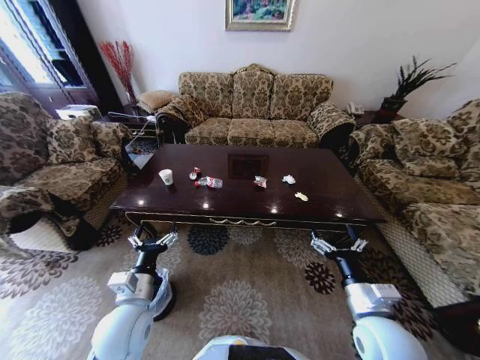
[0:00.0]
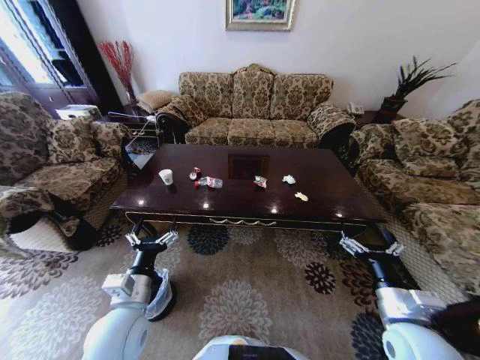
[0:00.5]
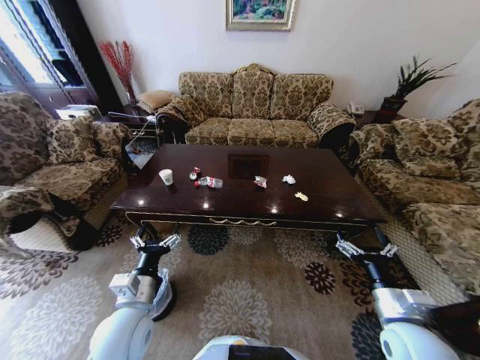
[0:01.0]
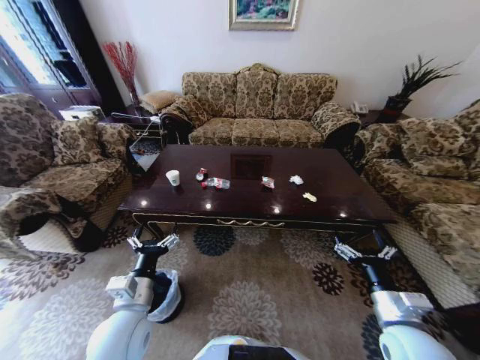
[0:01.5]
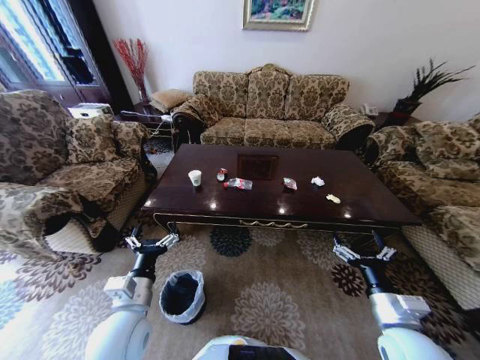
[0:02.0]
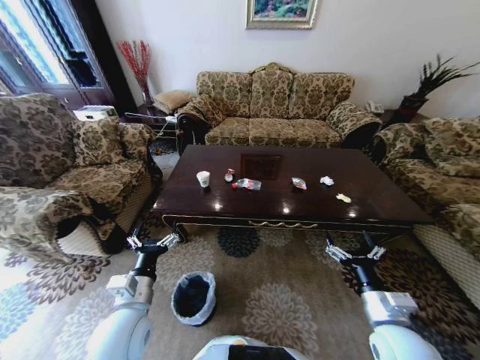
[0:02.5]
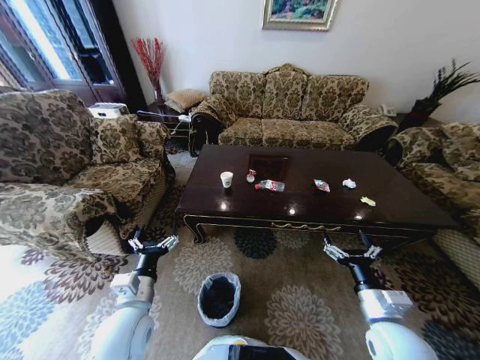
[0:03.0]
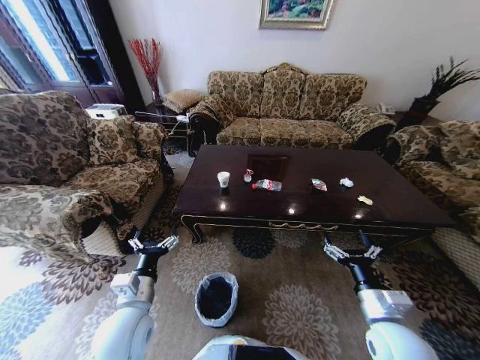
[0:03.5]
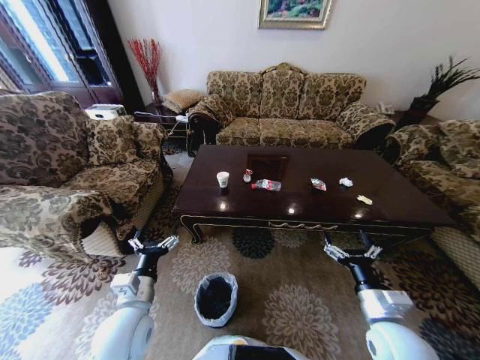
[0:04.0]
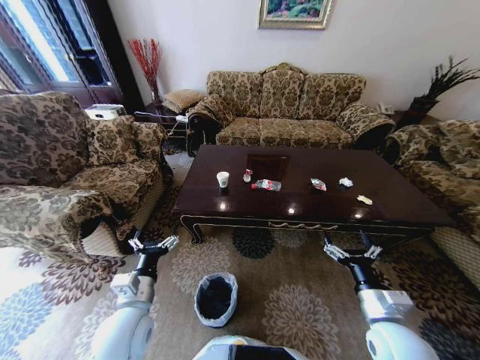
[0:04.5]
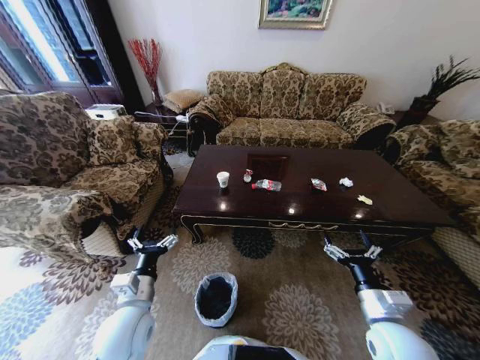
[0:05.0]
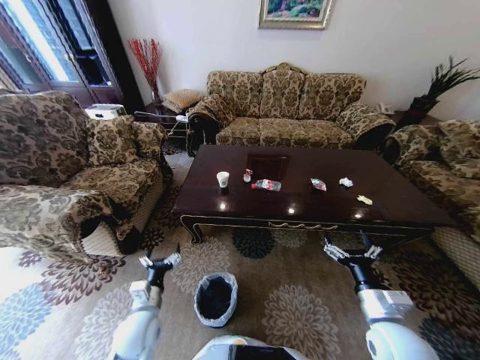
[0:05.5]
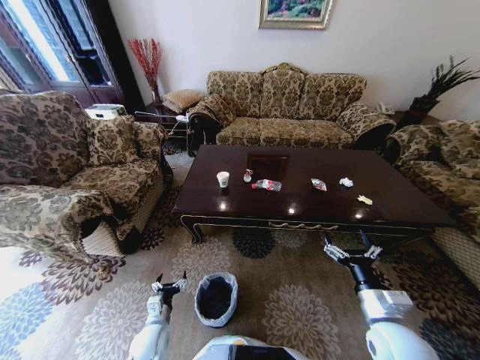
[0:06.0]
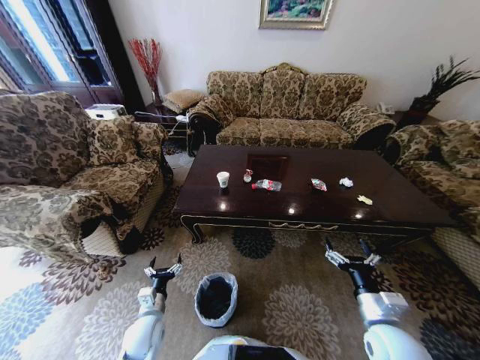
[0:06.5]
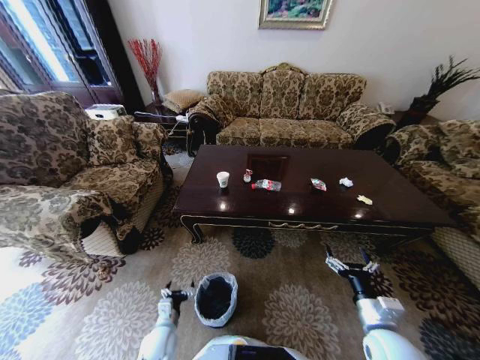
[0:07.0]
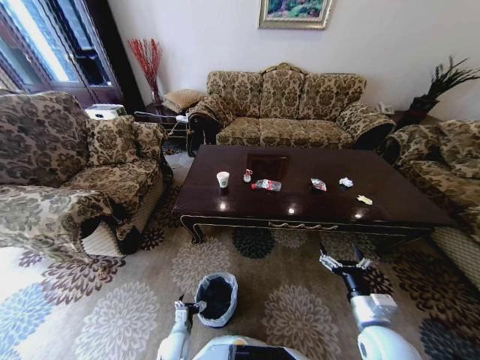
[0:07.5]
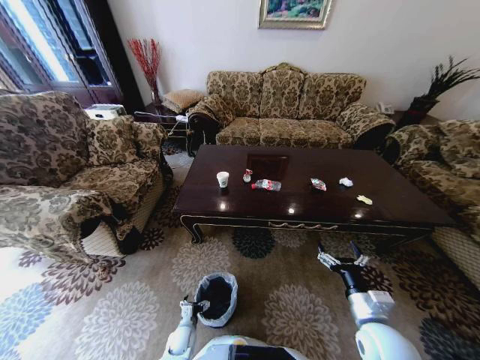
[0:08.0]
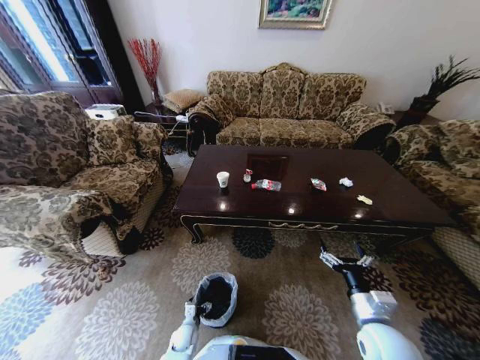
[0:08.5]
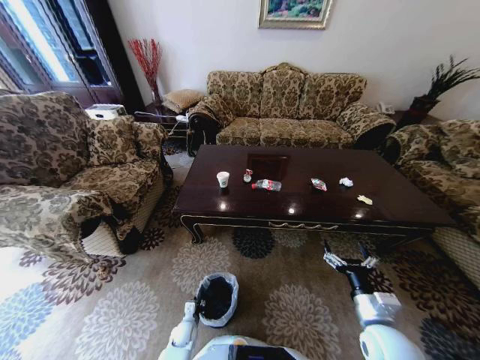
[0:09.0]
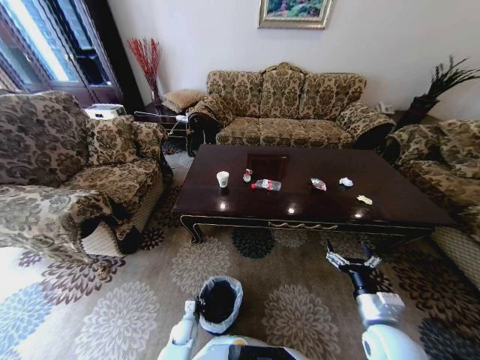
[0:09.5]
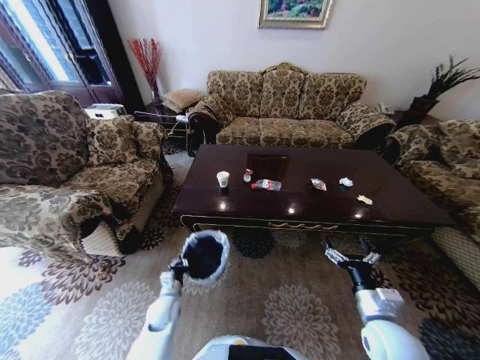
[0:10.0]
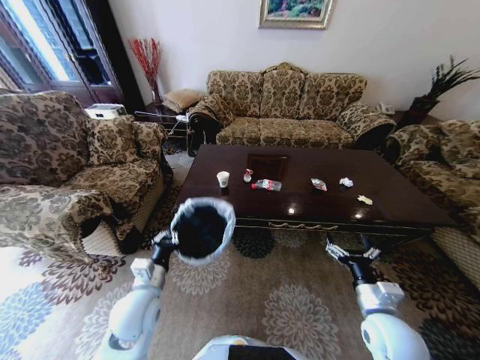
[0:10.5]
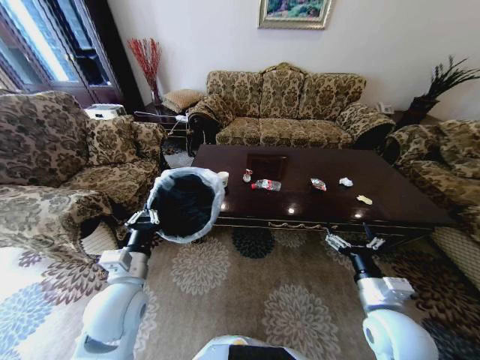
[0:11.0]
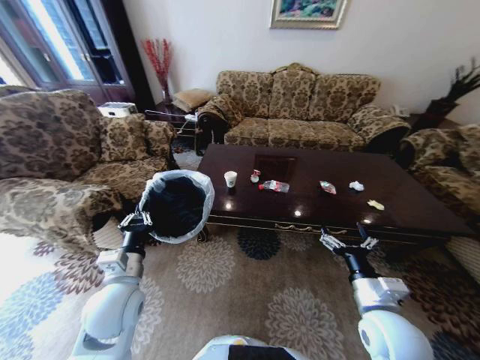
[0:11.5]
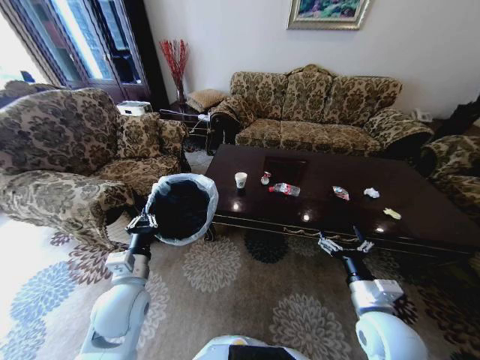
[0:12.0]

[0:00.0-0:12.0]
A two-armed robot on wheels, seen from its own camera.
Task of the whole recording: Move to the front of the table and place the trash on the table into the trash bin.
0:04.0 to 0:06.0: The left gripper heads downward, covering some 20 cm.
0:06.0 to 0:08.0: The left gripper goes some 15 cm downward and to the right.
0:08.0 to 0:10.0: The left gripper goes some 15 cm upward and forward, and closes.
0:10.0 to 0:12.0: The left gripper heads upward, covering about 25 cm.

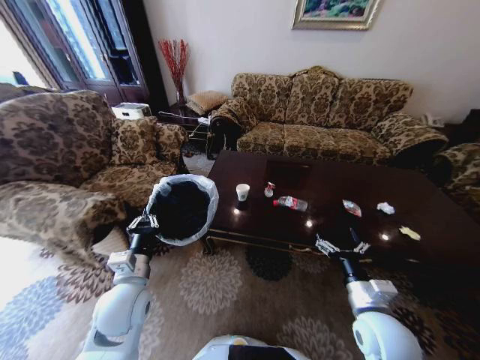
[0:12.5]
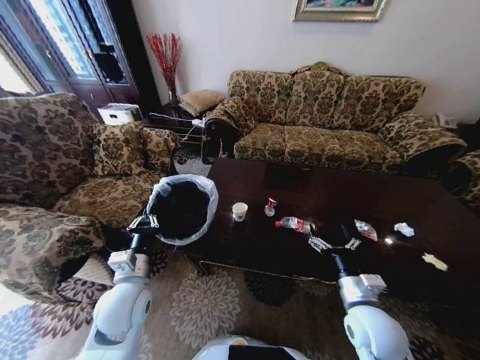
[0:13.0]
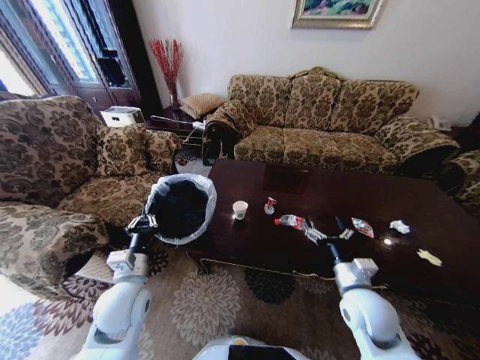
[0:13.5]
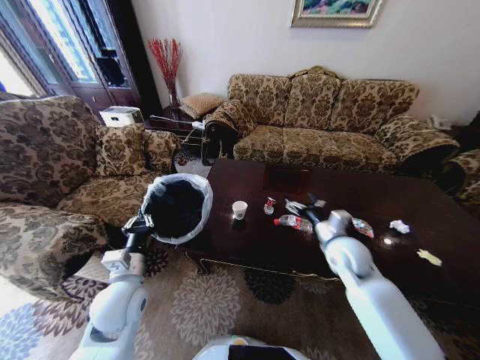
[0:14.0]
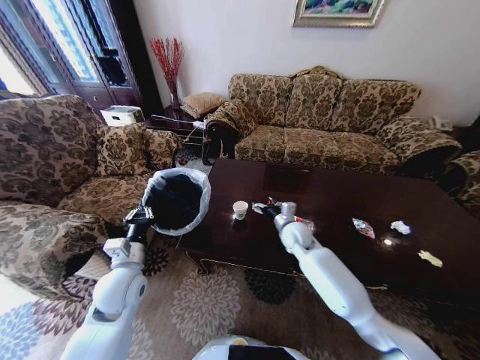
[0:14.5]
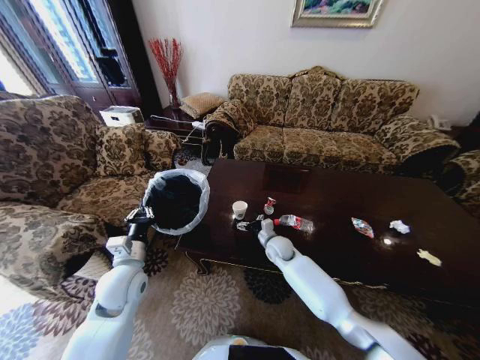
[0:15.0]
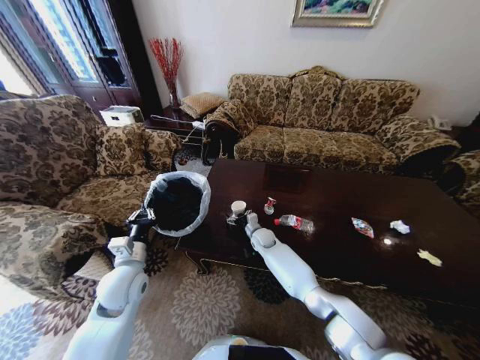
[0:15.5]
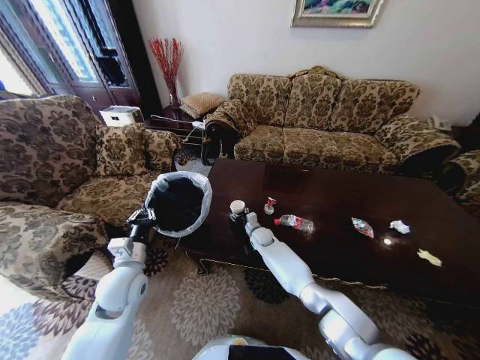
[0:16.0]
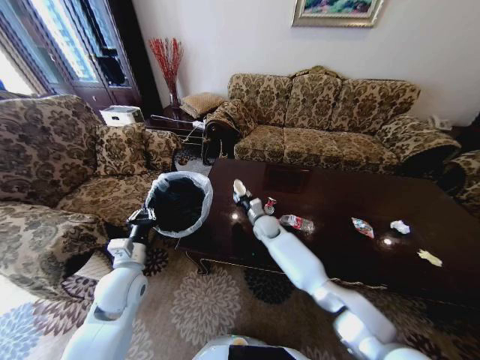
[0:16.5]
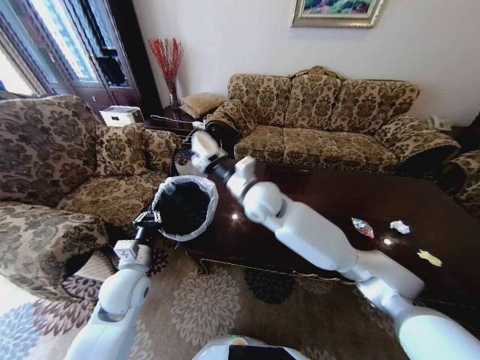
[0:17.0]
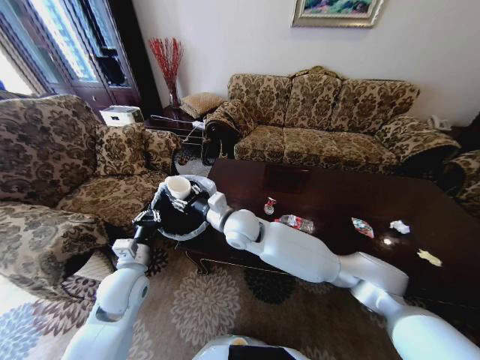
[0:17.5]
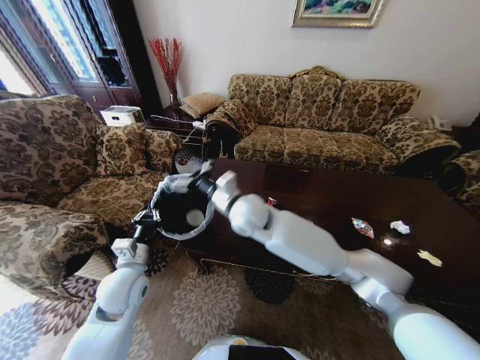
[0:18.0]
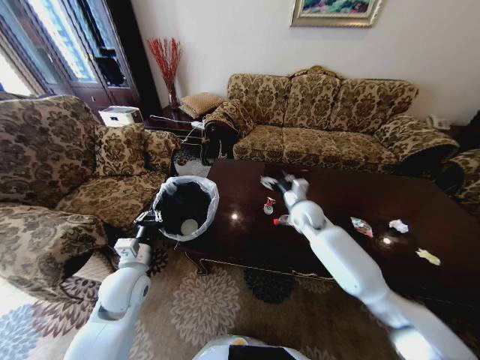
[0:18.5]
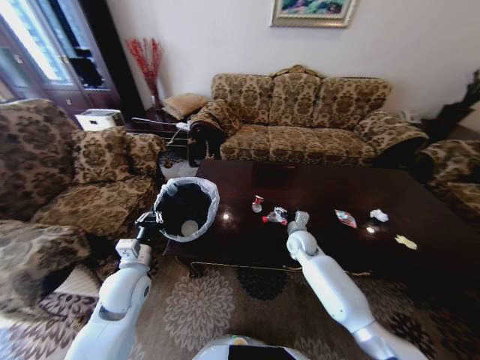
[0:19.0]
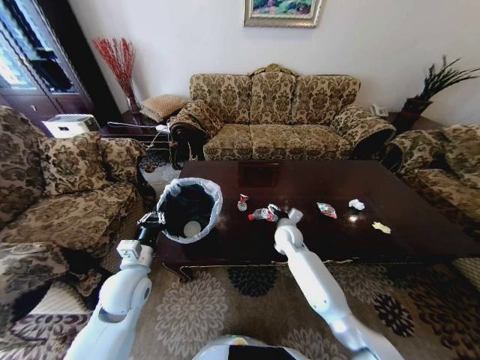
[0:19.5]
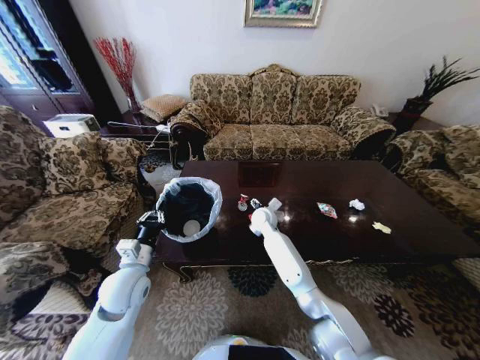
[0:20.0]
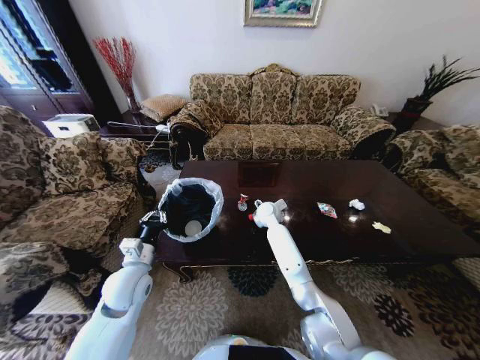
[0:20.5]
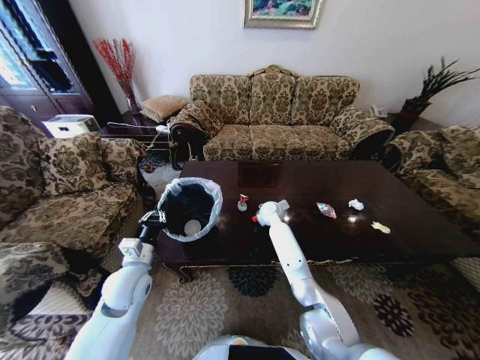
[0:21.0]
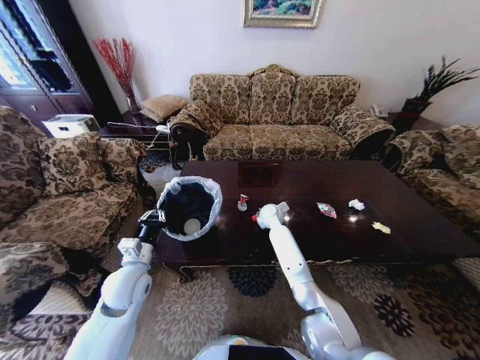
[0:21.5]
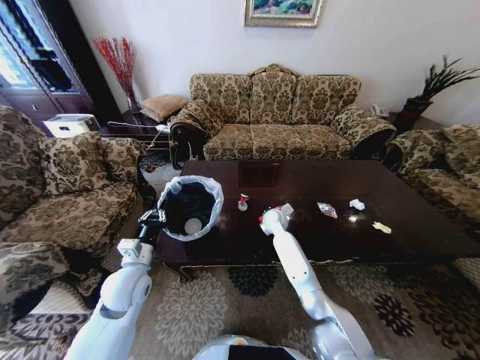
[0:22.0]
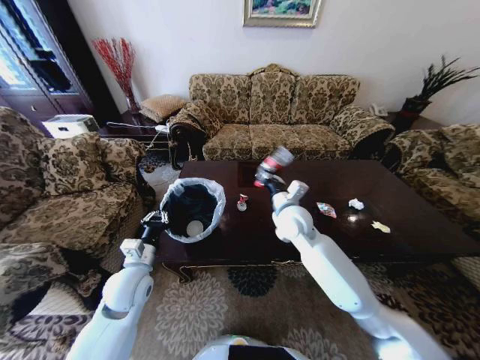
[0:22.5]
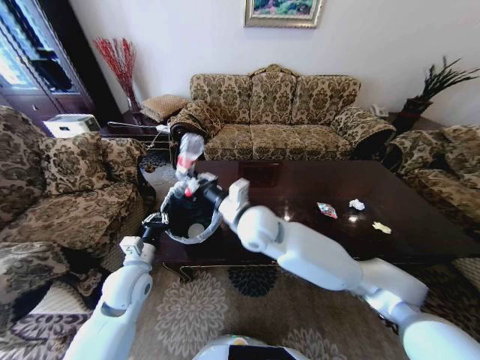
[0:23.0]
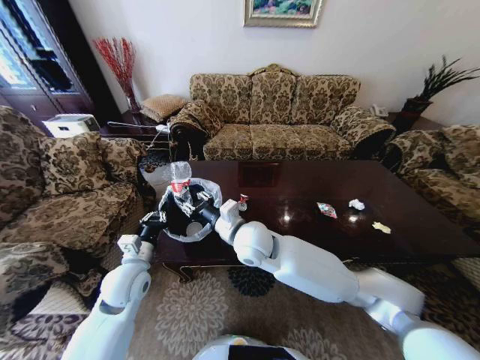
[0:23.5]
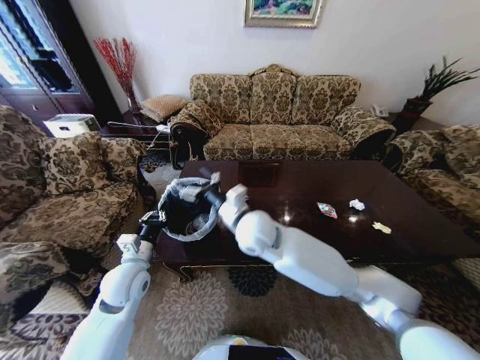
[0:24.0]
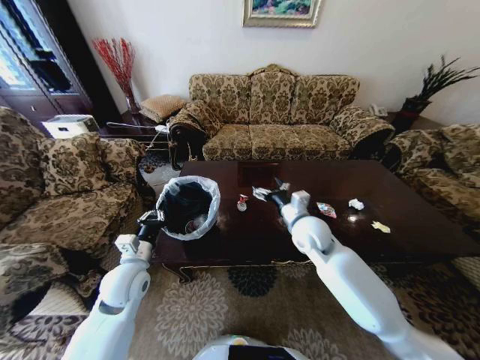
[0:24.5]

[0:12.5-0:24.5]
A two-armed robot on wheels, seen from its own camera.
Task of the whole recording: Move to the front of the table and place the trash on the table into the trash bin.
0:12.5 to 0:14.5: The right gripper heads forward and to the left, covering approximately 30 cm.
0:14.5 to 0:16.5: The right gripper moves to the left and forward, about 10 cm, travels downward and back again, approximately 15 cm each way, and closes its fingers.
0:16.5 to 0:18.5: The right gripper swings up and down, approximately 25 cm each way, with 3 reversals, and opens up.
0:18.5 to 0:20.5: The right gripper moves to the left, downward and forward, approximately 15 cm.
0:20.5 to 0:22.5: The right gripper travels backward and upward by about 15 cm, and closes its fingers.
0:22.5 to 0:24.5: The right gripper reaches roughly 10 cm to the left, then returns, and opens.

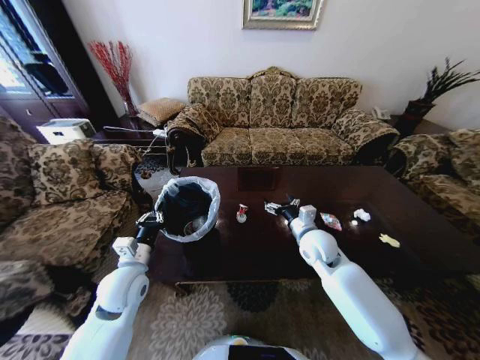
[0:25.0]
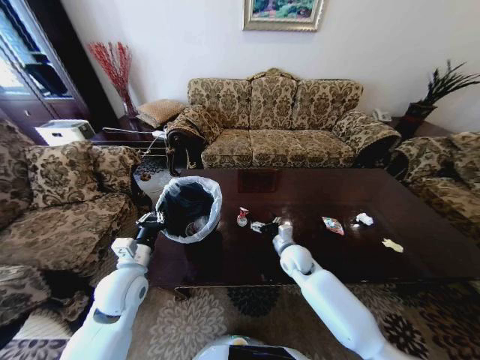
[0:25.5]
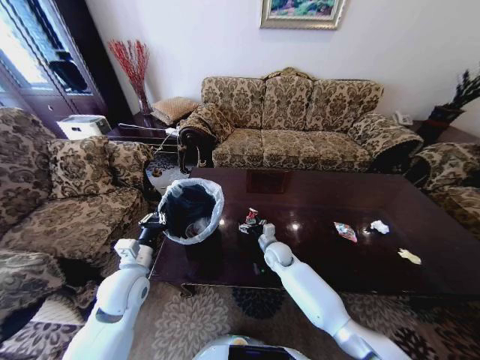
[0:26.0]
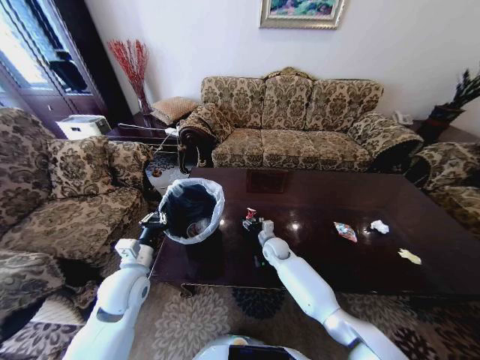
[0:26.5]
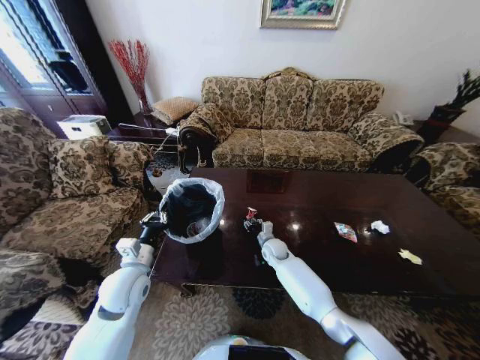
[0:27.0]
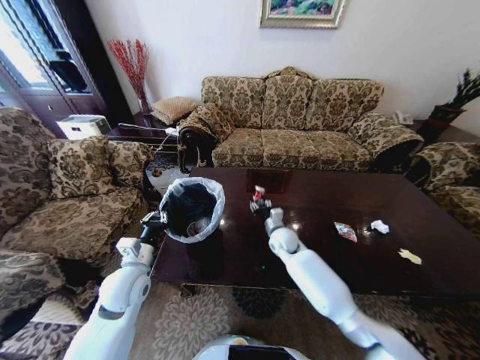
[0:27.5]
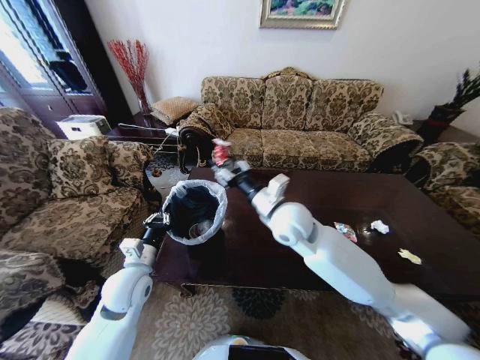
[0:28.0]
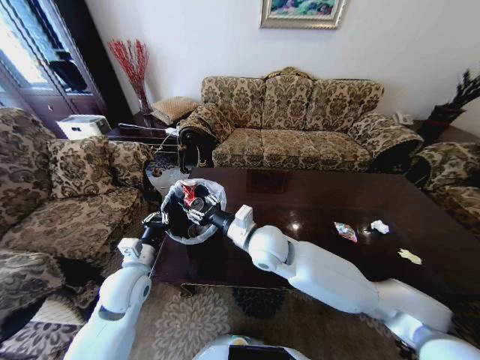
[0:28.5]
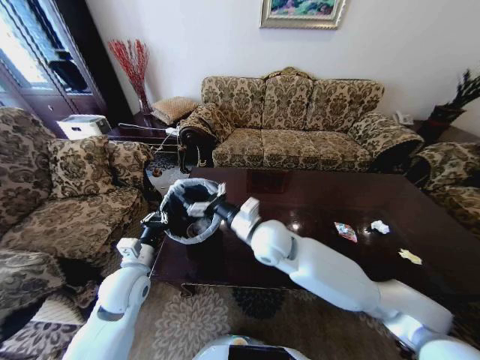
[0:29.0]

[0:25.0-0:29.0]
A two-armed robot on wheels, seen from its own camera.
Task of the whole recording: Move to the front of the table and place the trash on the table into the trash bin.
0:25.0 to 0:27.0: The right gripper heads downward, forward and to the left, covering some 20 cm, and closes.
0:27.0 to 0:29.0: The right gripper goes some 30 cm upward and backward, and opens.
